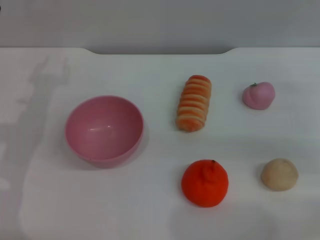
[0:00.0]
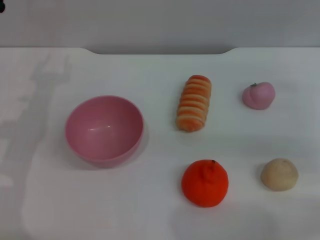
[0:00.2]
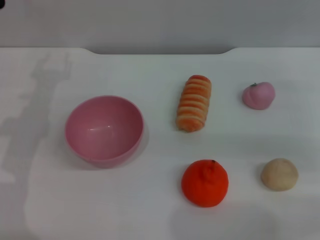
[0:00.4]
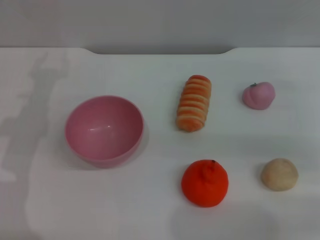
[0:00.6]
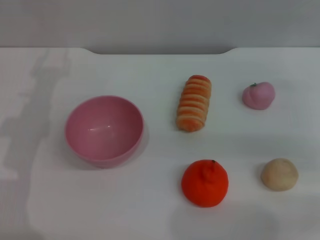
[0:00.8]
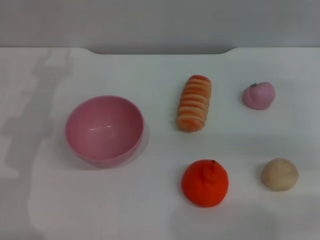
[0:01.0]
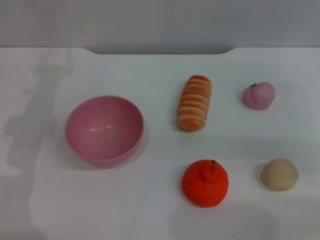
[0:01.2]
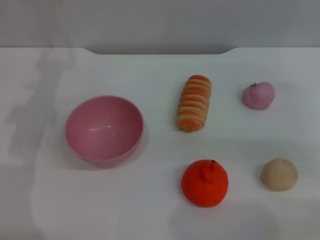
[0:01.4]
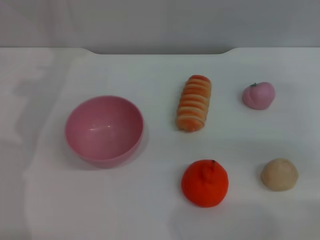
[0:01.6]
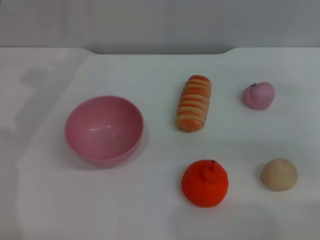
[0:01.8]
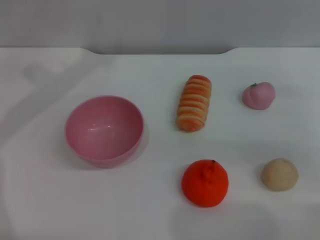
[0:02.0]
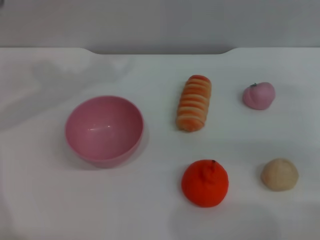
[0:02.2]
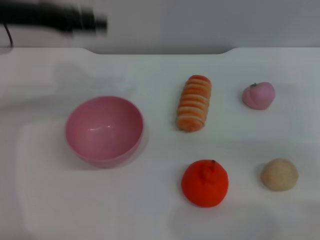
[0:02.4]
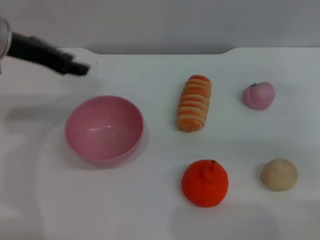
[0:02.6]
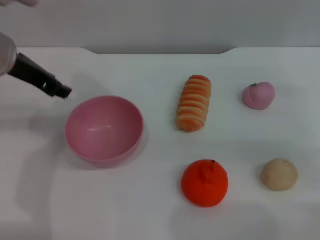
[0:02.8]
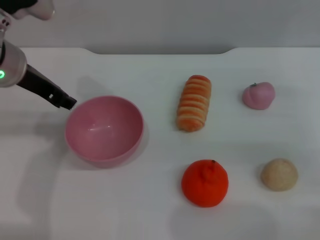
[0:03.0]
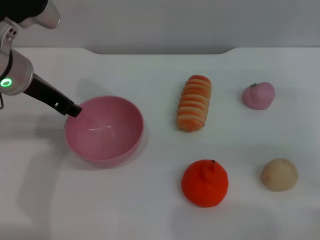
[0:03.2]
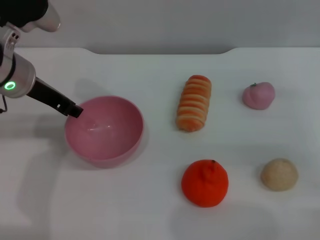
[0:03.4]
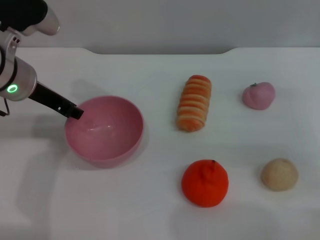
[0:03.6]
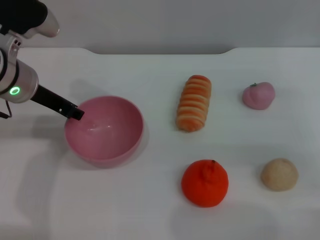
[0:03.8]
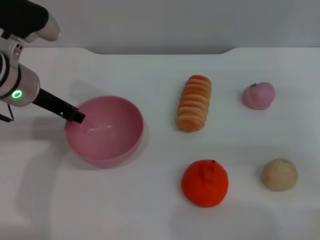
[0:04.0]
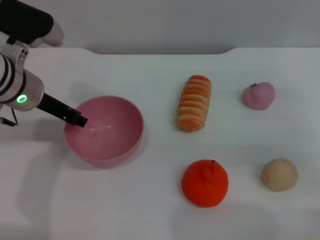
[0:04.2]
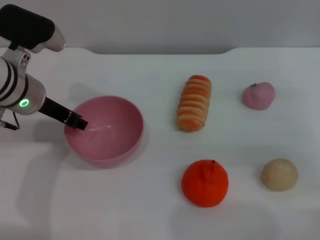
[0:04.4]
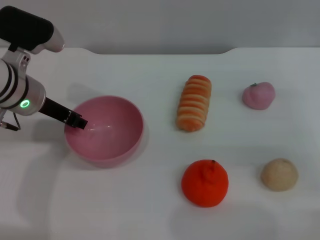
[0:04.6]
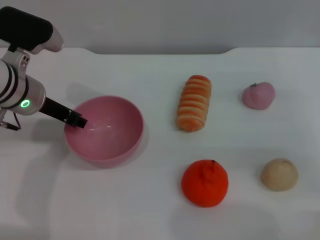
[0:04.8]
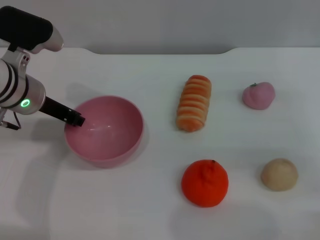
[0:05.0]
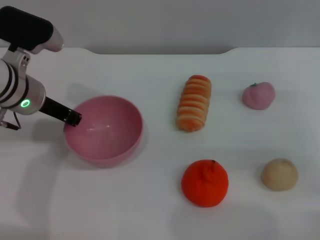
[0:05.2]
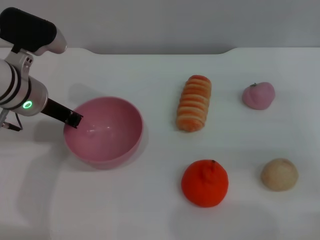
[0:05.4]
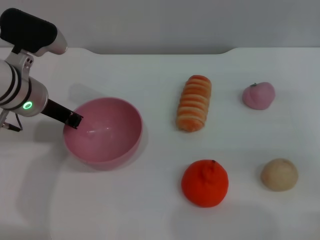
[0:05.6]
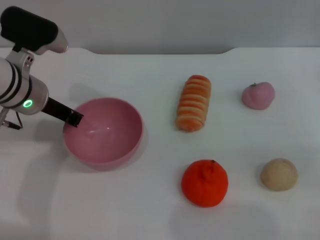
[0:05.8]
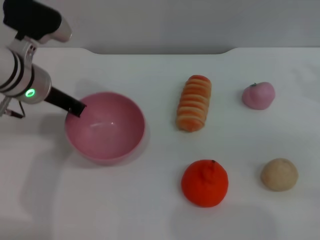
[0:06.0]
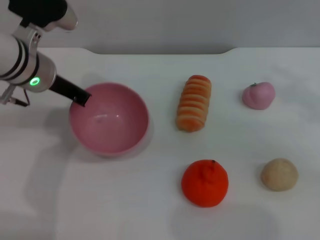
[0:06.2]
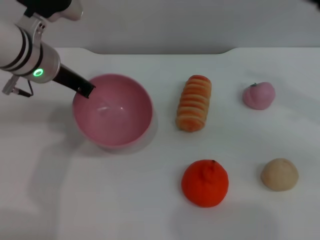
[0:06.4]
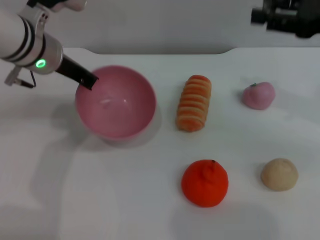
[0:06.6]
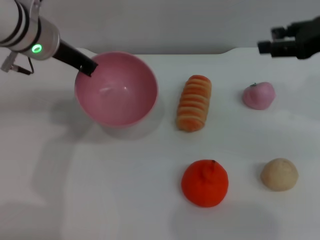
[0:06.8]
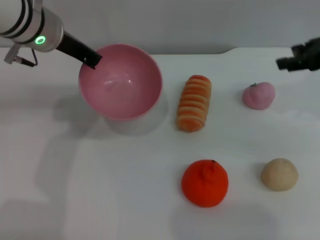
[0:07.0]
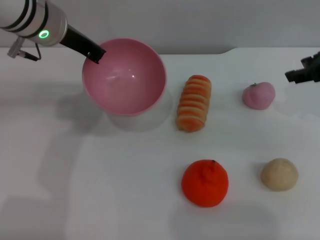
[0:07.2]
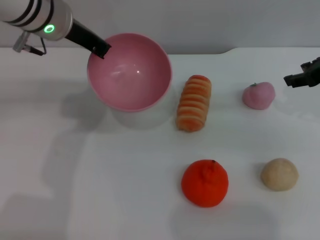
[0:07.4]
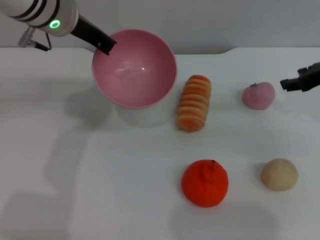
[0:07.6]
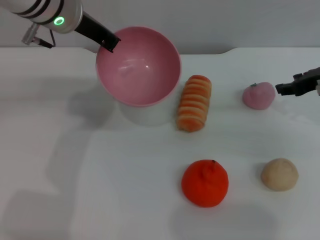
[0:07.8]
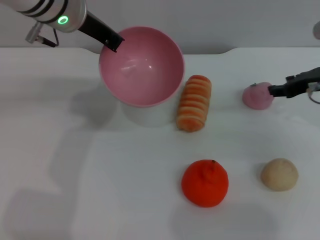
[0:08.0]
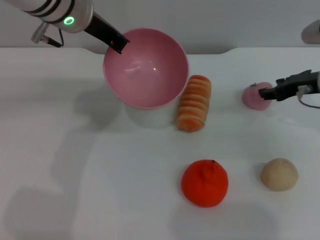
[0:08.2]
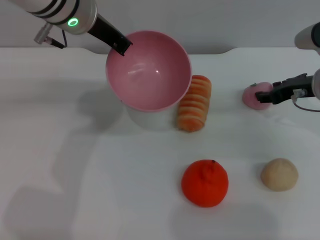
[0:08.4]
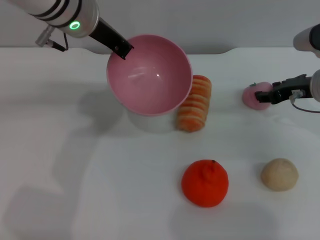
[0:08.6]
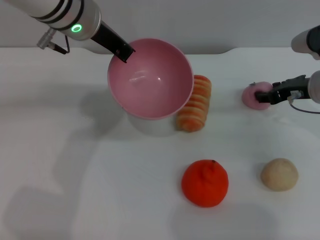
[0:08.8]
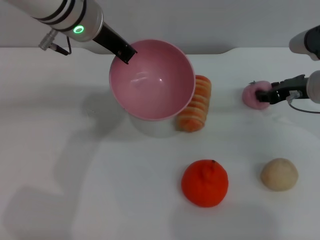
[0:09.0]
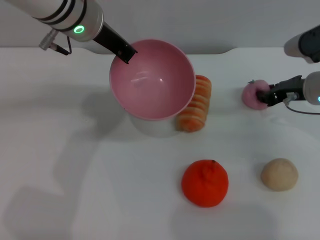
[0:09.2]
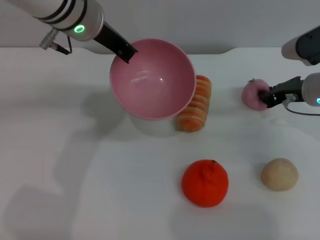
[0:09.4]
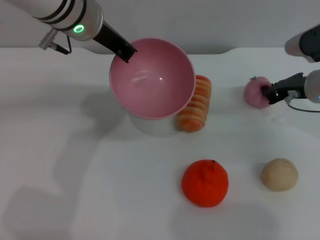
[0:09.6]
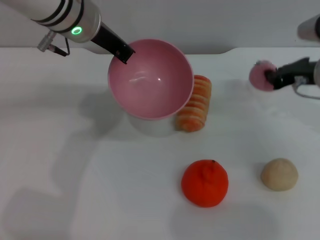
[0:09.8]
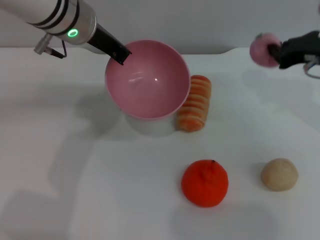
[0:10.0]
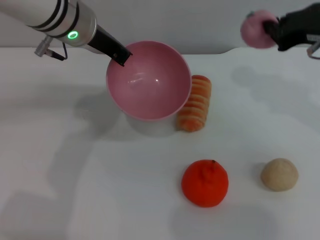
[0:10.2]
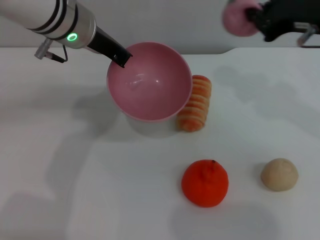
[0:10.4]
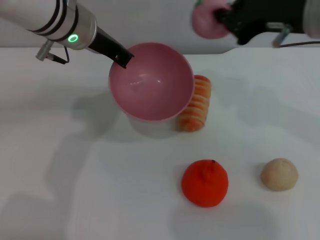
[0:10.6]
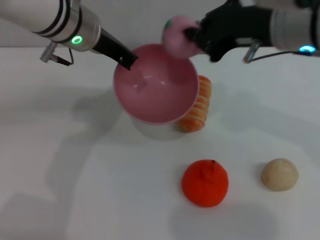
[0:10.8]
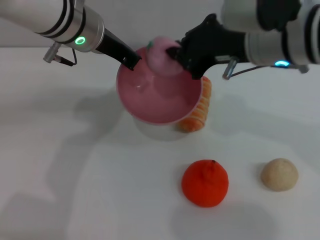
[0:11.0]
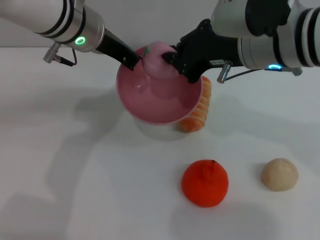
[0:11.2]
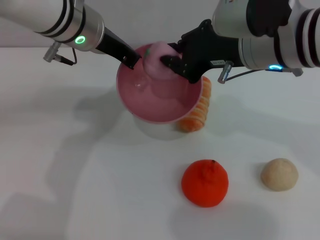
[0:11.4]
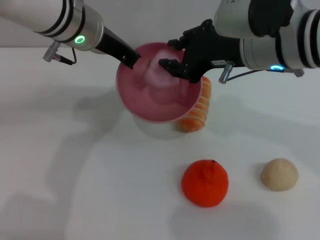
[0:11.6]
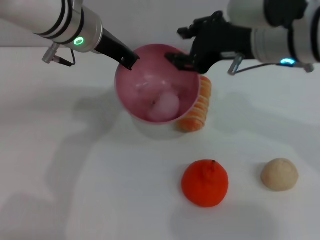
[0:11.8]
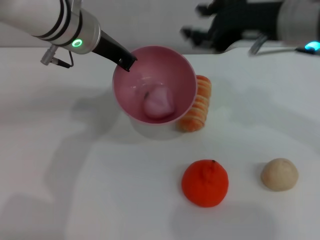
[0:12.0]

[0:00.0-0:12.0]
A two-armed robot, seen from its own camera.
Task of the whole recording: put the peach into the pink bowl and pour it out repeatedly.
Step, 0:00.0 to 0:06.6: Pick up the bowl with the left gripper.
Step, 0:06.8 to 0:09.6: Pick up the peach with the right gripper.
Step, 0:10.0 to 0:11.8: Place the peach into the bowl.
0:01.6 to 0:03.0: The left gripper moves to the right, roughly 5 cm.
0:03.0 to 0:04.4: The left gripper is displaced downward by roughly 5 cm.
0:04.4 to 0:06.0: The left gripper closes up.
0:06.0 to 0:07.6: The left gripper goes some 10 cm upward; the right gripper shifts approximately 5 cm forward.
0:07.6 to 0:09.0: The right gripper shifts roughly 5 cm downward.
0:09.0 to 0:10.4: The right gripper goes about 15 cm upward, and closes up.
0:10.4 to 0:12.0: The right gripper opens.

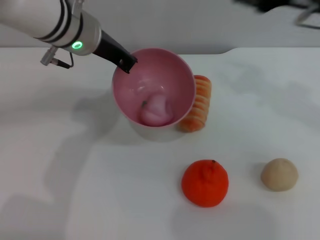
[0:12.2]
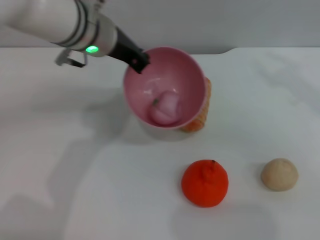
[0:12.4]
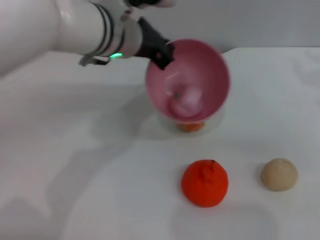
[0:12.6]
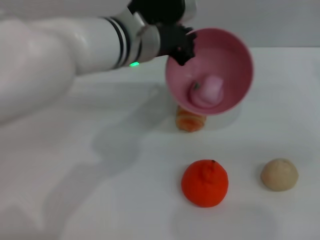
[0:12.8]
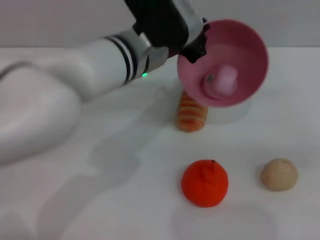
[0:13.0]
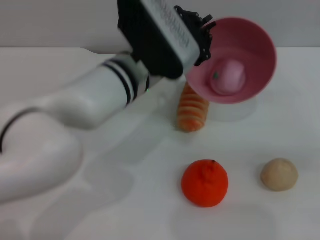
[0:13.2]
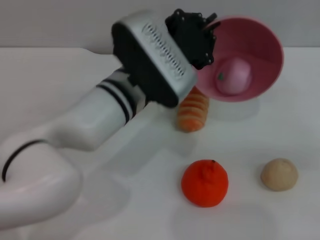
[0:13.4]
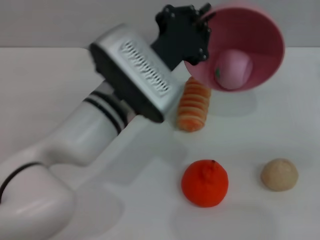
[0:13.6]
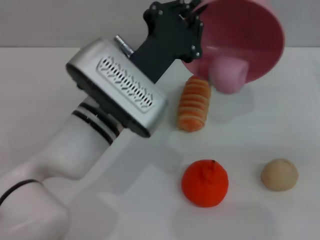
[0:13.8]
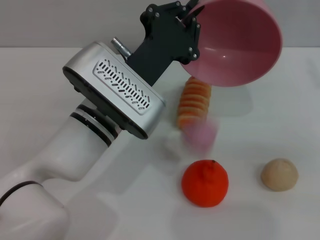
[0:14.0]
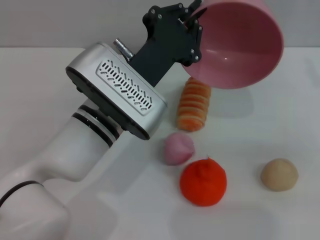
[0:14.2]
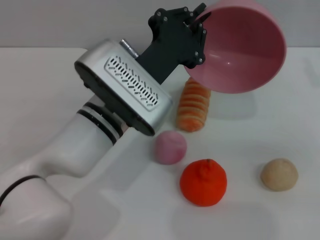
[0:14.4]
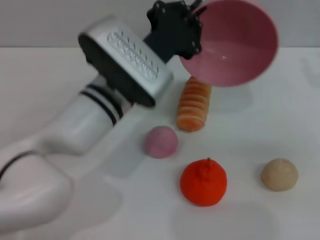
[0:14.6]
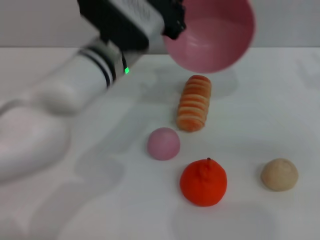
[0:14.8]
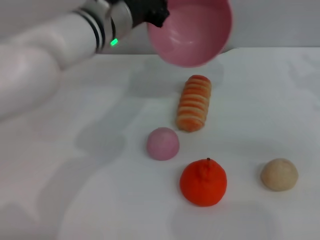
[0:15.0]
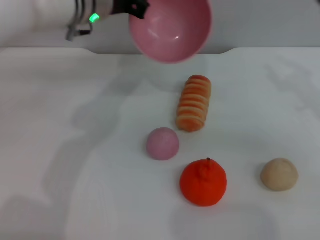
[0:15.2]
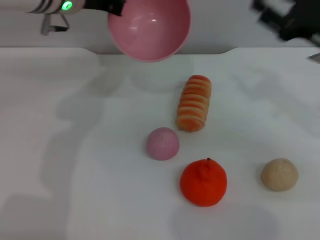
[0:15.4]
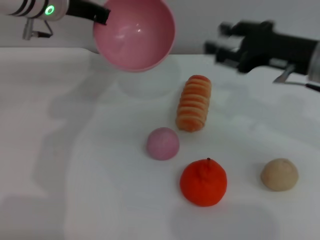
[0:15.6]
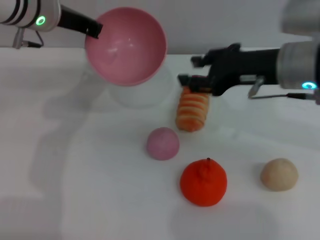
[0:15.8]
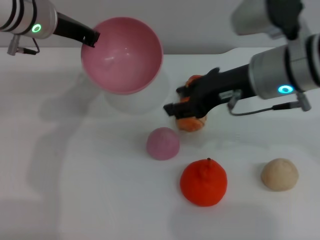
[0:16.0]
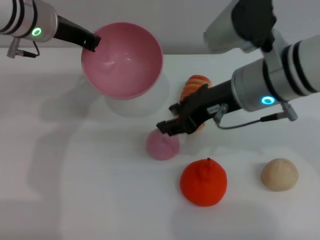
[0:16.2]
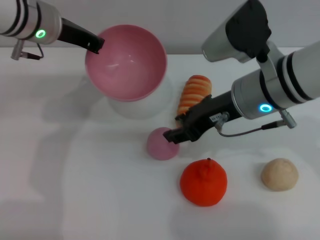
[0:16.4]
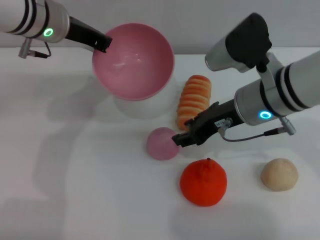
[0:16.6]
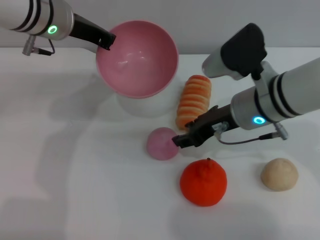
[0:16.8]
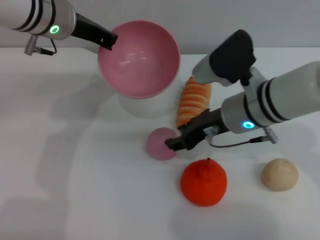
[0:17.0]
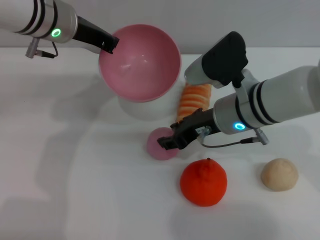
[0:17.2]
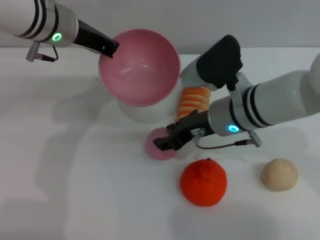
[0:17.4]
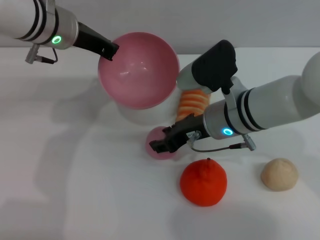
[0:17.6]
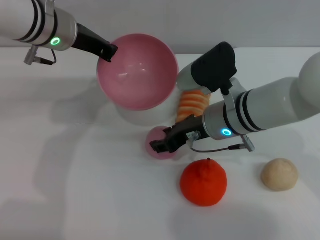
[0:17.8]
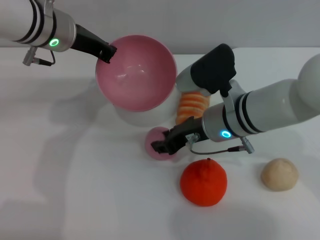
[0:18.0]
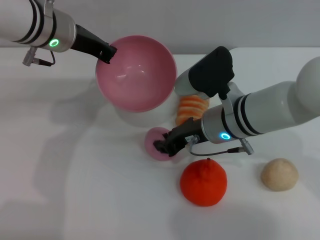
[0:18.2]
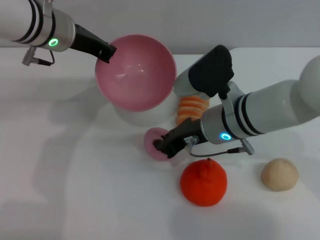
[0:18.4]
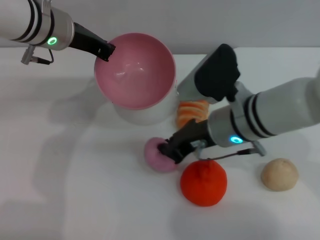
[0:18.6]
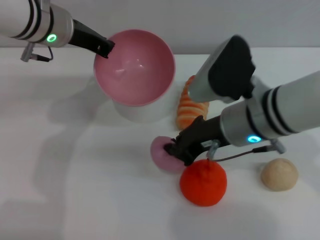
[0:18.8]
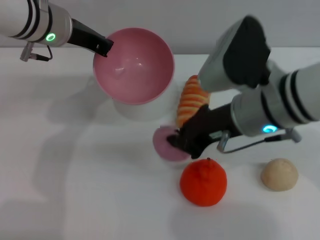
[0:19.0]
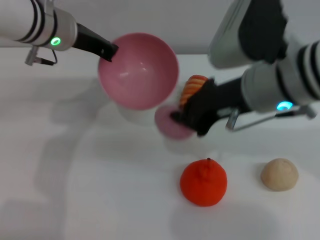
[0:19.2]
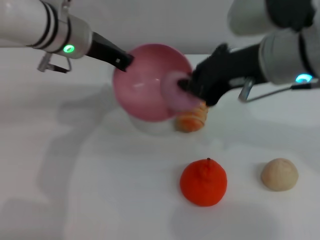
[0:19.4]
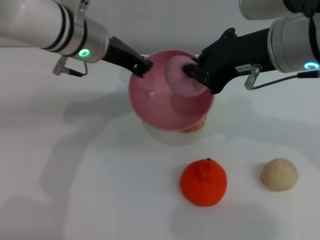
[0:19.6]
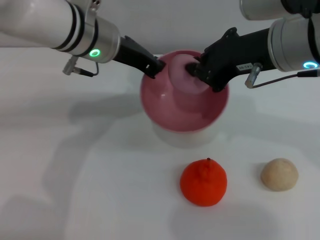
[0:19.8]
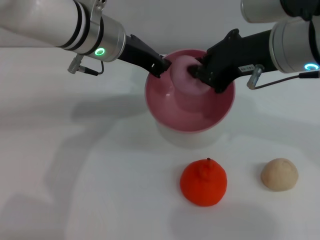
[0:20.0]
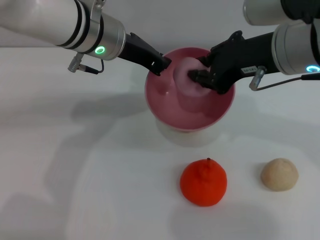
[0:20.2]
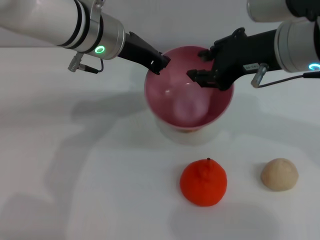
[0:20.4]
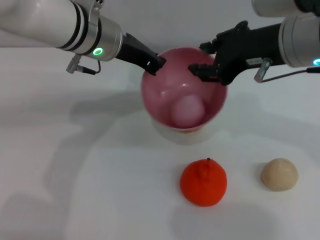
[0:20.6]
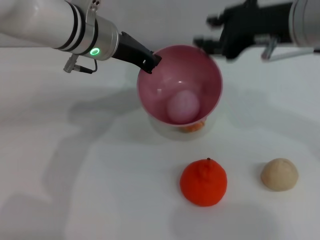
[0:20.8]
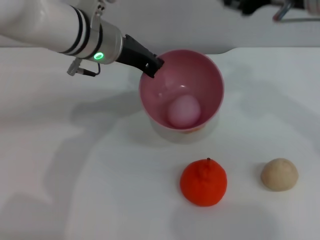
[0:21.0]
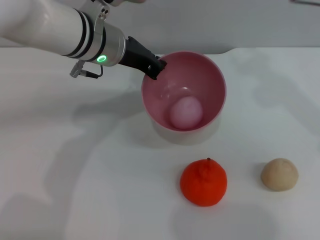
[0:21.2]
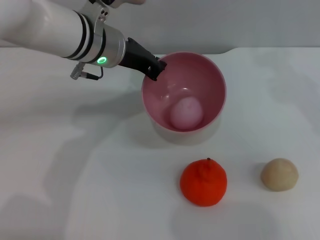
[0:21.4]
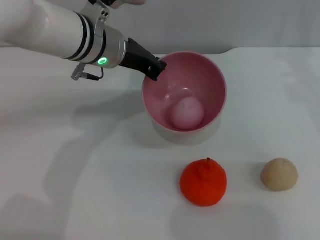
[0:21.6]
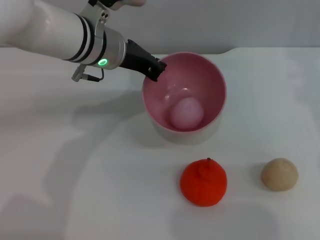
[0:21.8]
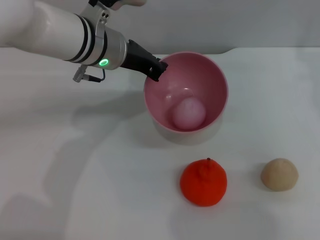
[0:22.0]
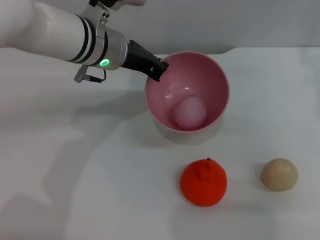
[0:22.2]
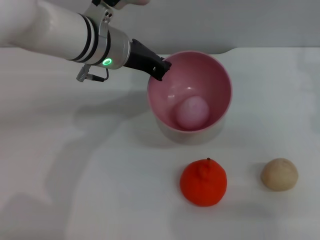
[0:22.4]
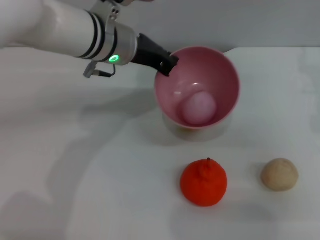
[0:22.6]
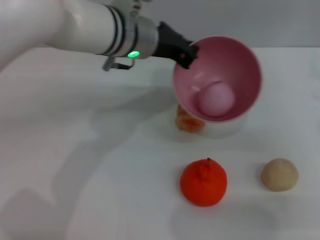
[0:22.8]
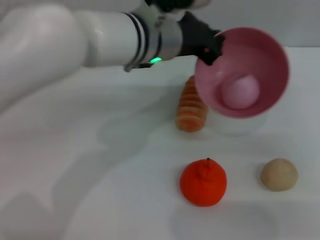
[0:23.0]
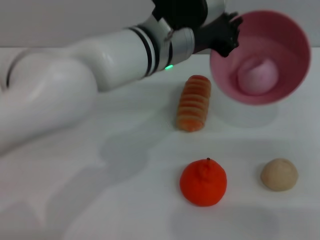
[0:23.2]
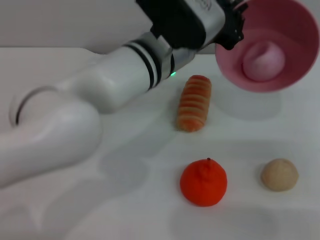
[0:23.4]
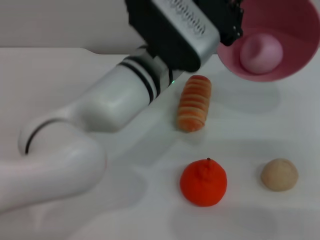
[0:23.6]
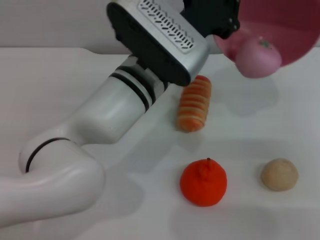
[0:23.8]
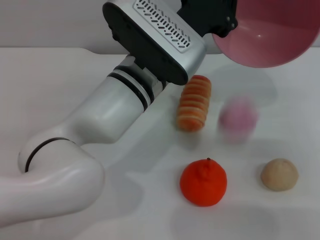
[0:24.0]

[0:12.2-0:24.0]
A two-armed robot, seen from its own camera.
Task of the whole recording: put the peach into the pink bowl and pour it out repeatedly.
Step, 0:12.2 to 0:14.2: Pour the peach out of bowl.
Step, 0:14.4 to 0:19.0: Pick up the peach with the right gripper.
Step, 0:19.4 to 0:20.6: Place the peach into the bowl.
0:12.2 to 0:13.6: The left gripper goes approximately 15 cm backward, downward and to the right, while the right gripper heads to the right and downward, covering about 15 cm.
0:13.6 to 0:15.2: The right gripper goes some 5 cm to the left. Meanwhile the left gripper shifts about 15 cm forward and upward.
0:15.2 to 0:16.6: The left gripper heads to the left, covering some 5 cm; the right gripper goes about 15 cm to the left.
0:16.6 to 0:18.2: The right gripper moves downward, about 5 cm.
0:18.2 to 0:19.6: The right gripper moves upward, about 15 cm, and closes.
0:19.6 to 0:21.0: The right gripper ends up some 5 cm from where it was, and opens up.
0:21.0 to 0:22.6: The right gripper moves downward and to the right, about 15 cm.
0:22.6 to 0:24.0: The left gripper heads backward and to the right, covering some 10 cm. The right gripper changes place by roughly 5 cm.
